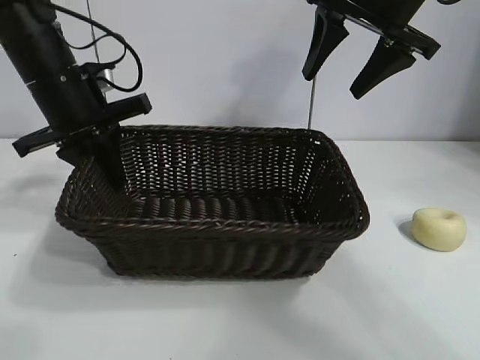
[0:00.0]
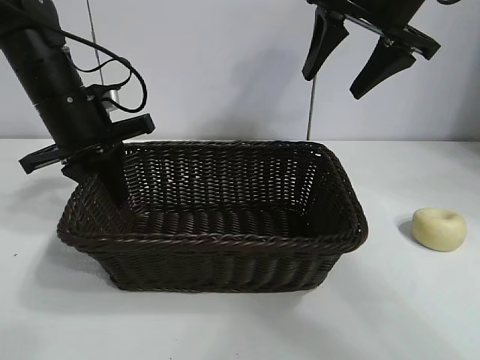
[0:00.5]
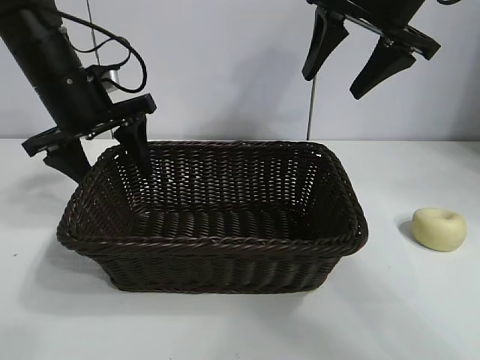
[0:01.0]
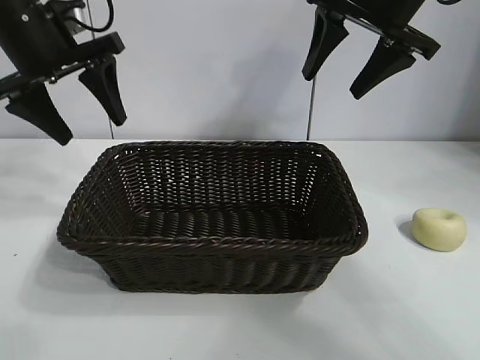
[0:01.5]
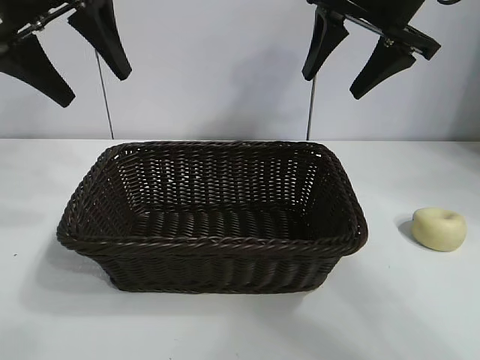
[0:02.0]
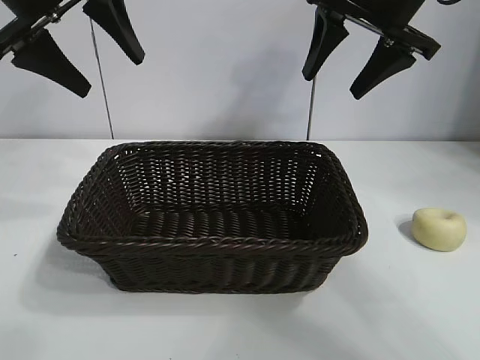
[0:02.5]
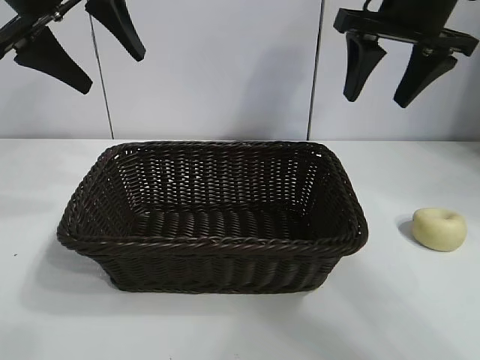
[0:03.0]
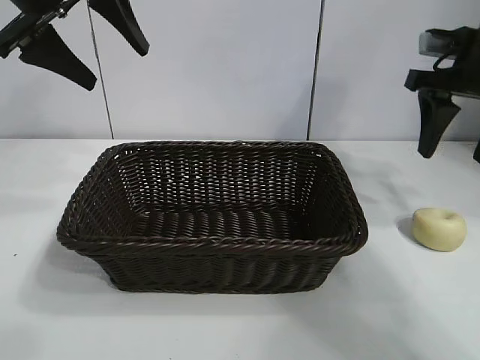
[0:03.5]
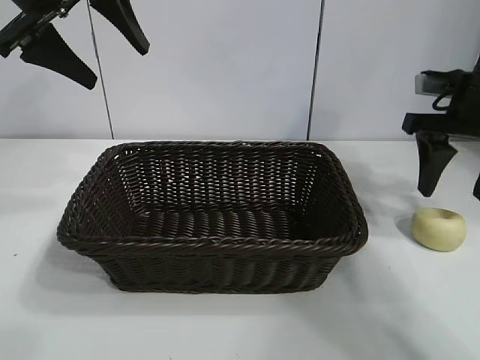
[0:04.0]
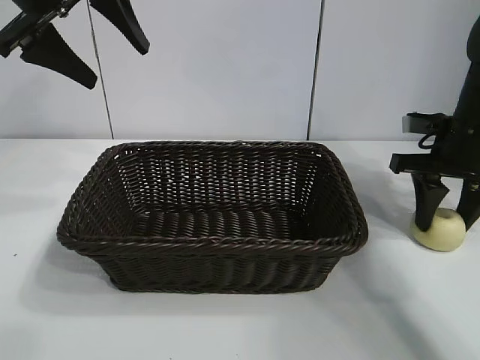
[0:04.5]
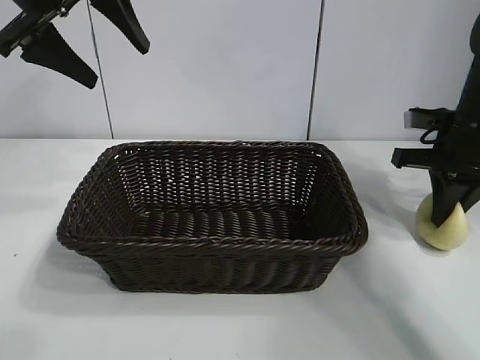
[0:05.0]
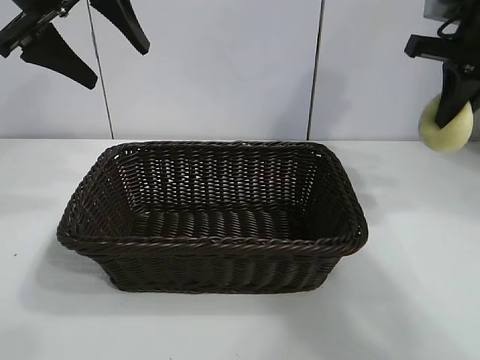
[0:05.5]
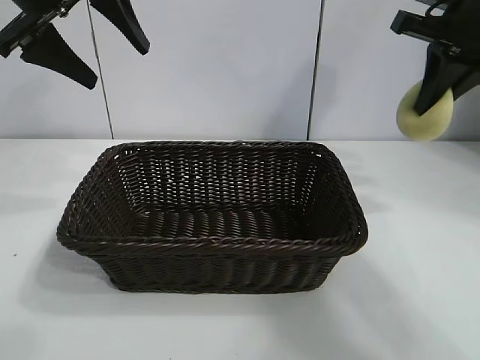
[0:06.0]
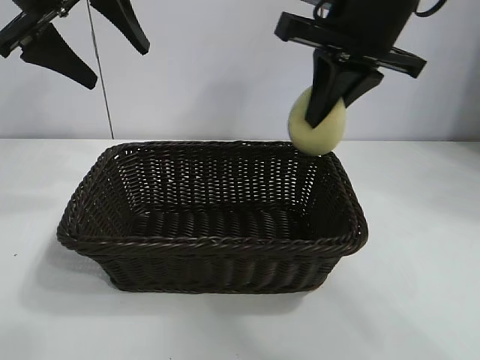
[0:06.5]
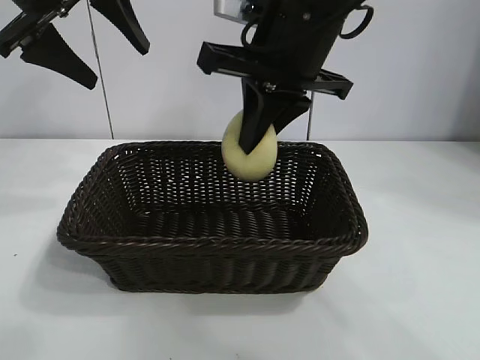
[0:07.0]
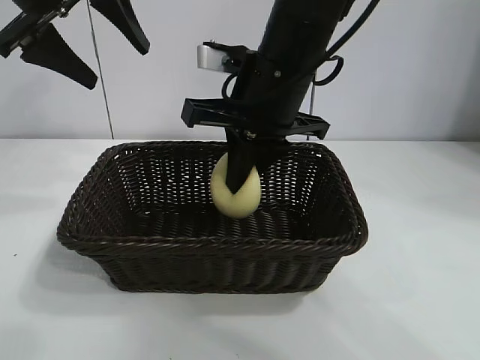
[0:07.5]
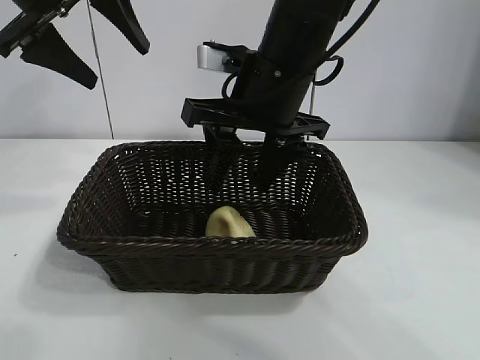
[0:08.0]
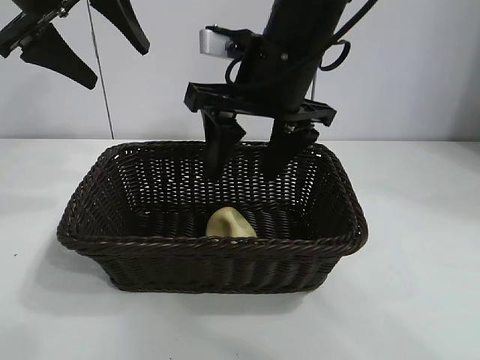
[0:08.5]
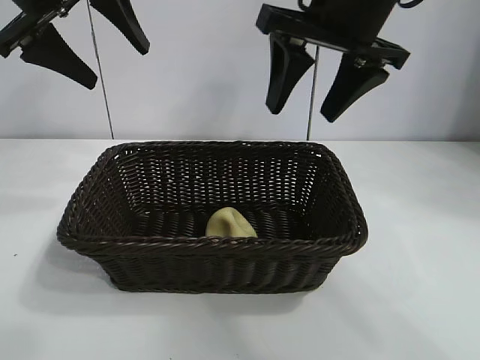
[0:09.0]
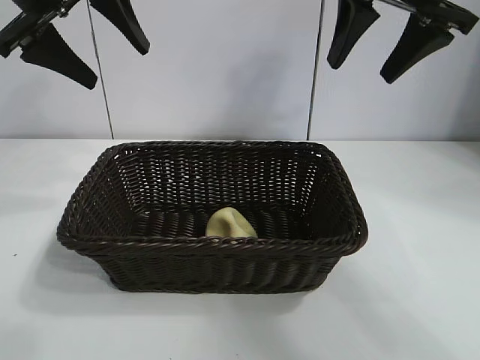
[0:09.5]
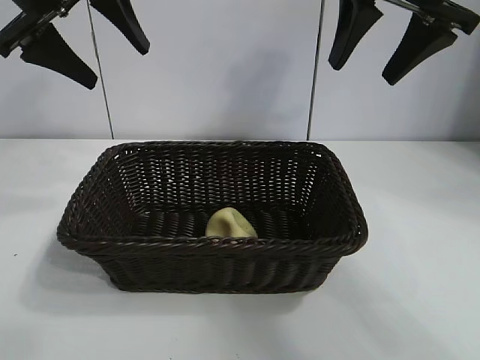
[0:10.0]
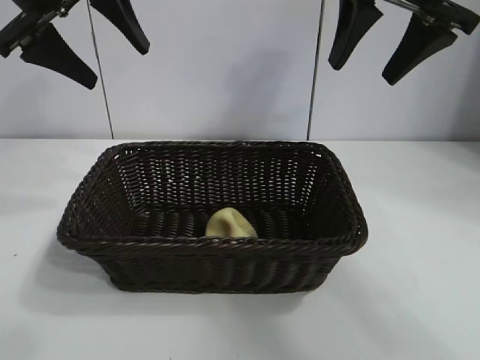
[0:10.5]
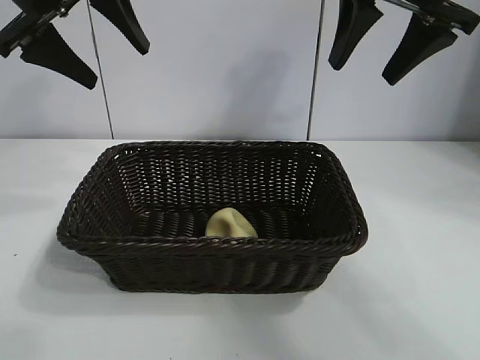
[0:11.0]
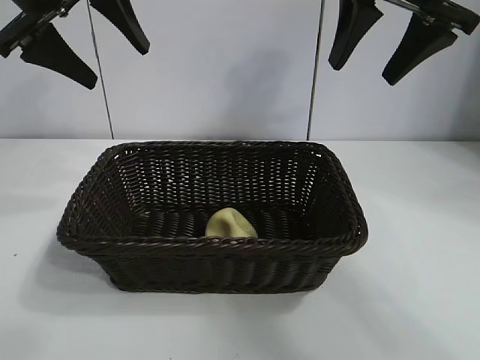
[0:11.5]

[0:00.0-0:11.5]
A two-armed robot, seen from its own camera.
Task of the whole recording: pick up the egg yolk pastry and put it into the basket.
Step, 0:01.0 to 0:04.5: Grasp egg yolk pastry with right gripper.
Step, 0:05.0 to 0:08.0: Place the egg yolk pastry in the basket with right gripper.

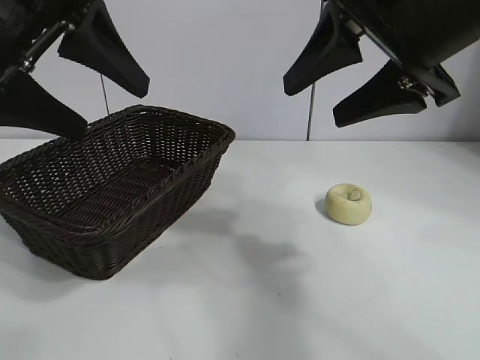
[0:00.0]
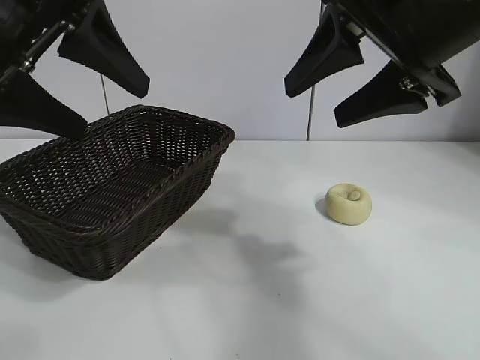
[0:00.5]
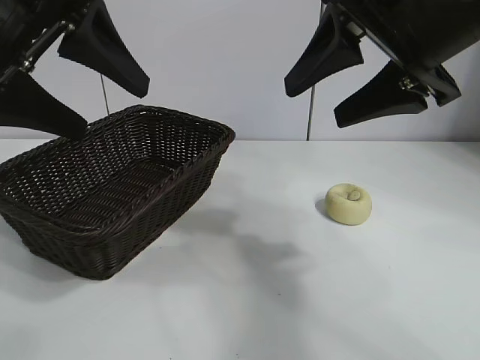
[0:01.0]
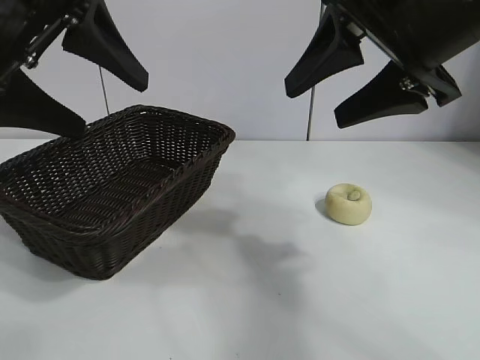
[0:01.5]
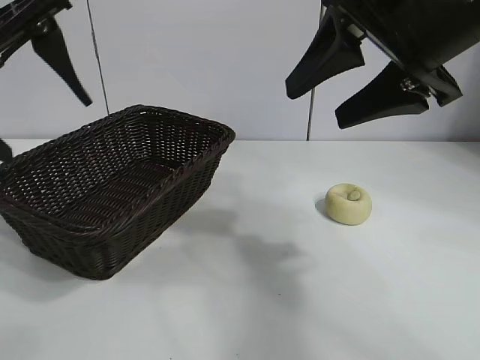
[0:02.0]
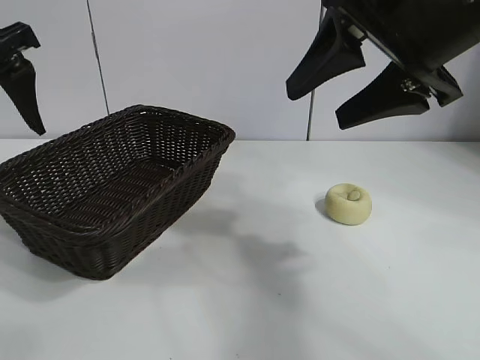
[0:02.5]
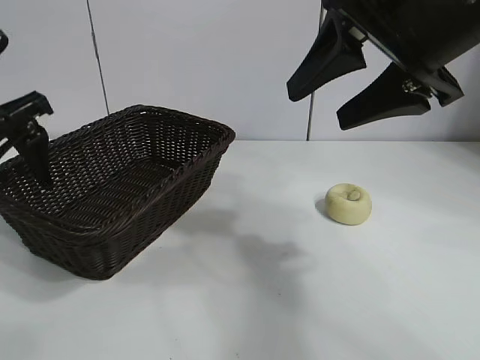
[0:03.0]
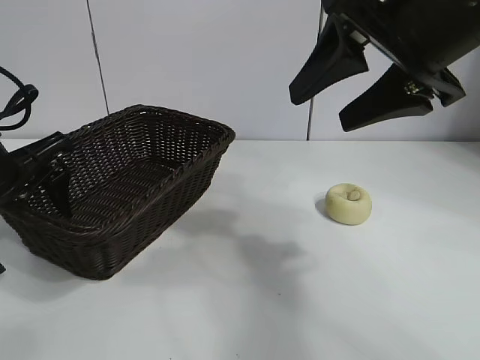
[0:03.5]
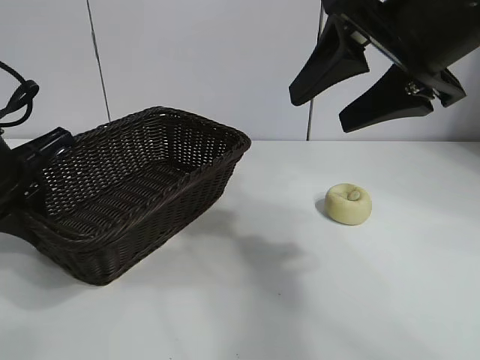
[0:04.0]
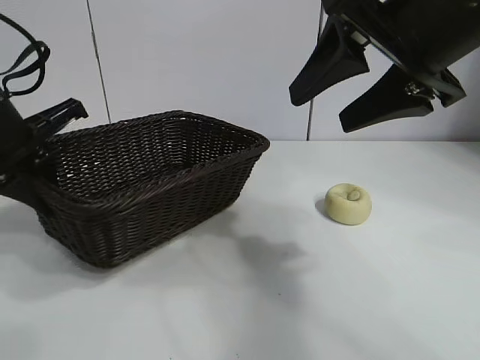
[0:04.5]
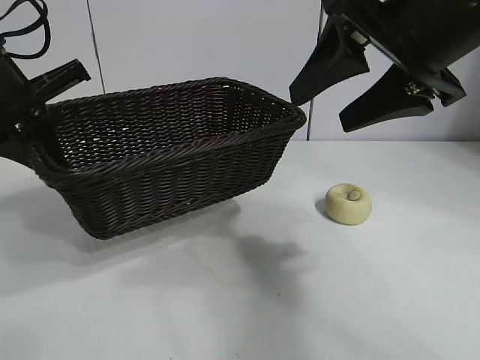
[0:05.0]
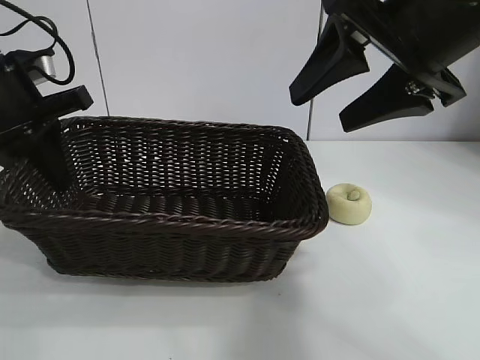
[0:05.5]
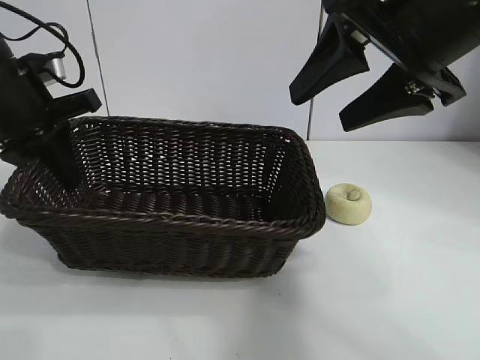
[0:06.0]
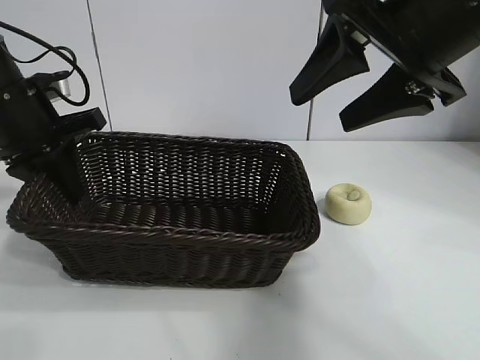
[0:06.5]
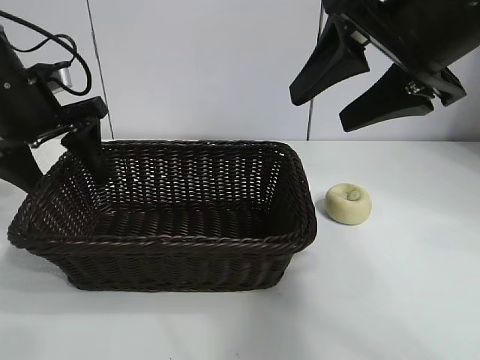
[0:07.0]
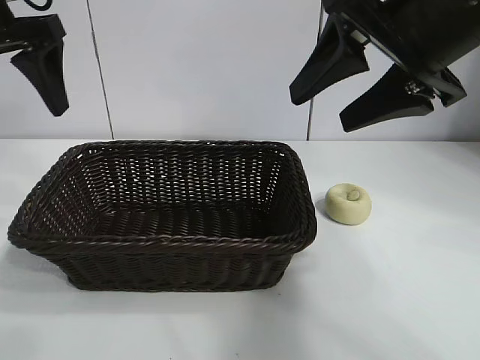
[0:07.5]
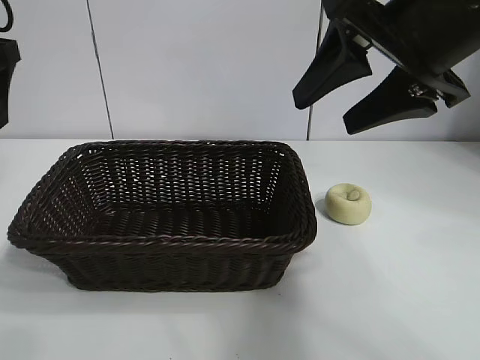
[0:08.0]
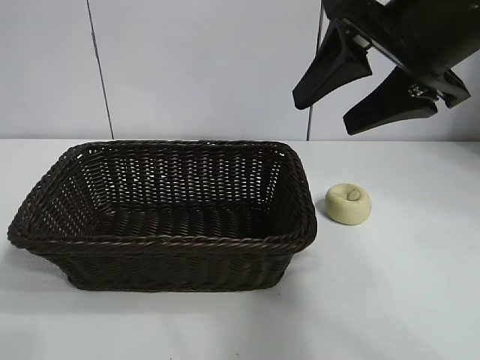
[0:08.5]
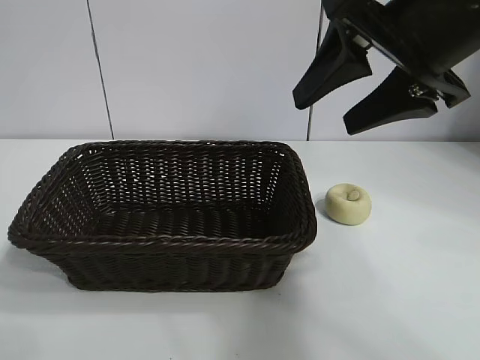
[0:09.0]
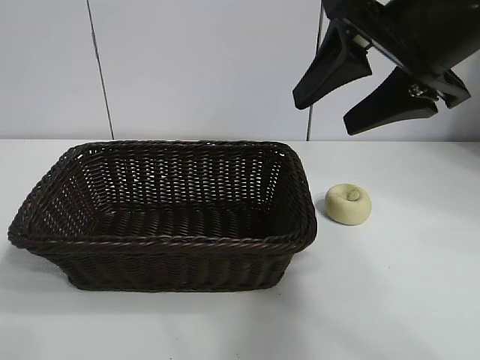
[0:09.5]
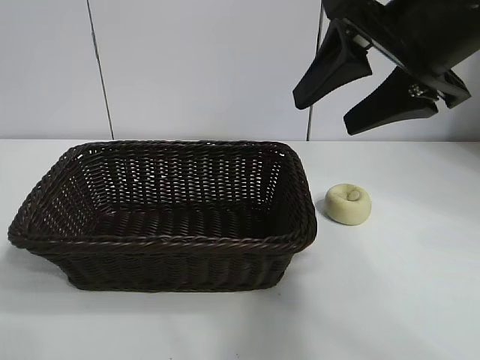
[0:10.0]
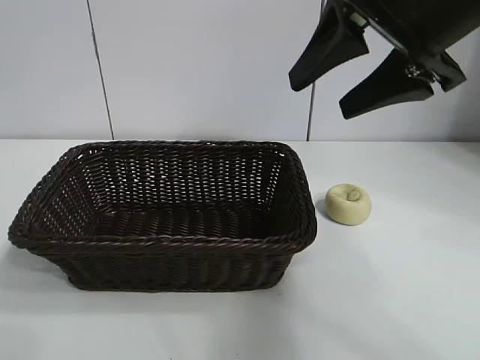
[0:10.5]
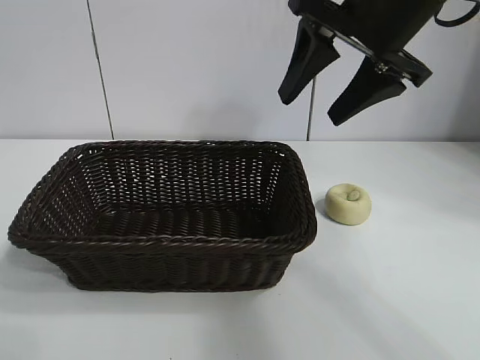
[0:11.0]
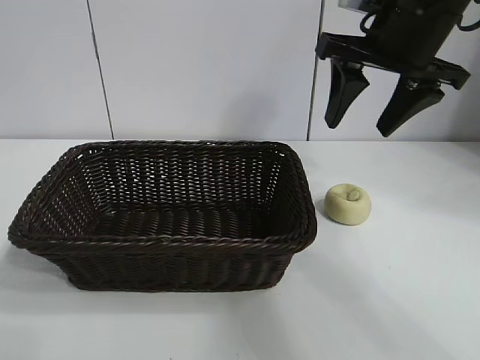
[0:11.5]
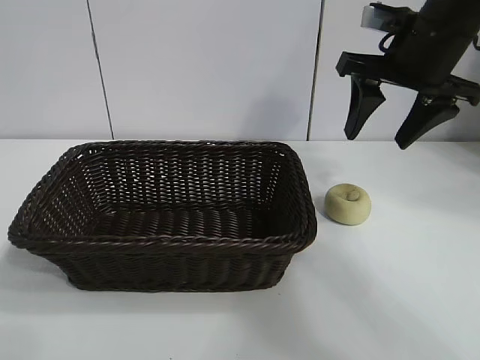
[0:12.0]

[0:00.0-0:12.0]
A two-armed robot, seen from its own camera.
Task of the whole recording: pick up the egg yolk pastry and put it into the basket.
Step, 0:01.5 to 0:03.5: Grasp the basket with left gripper.
Step, 0:04.0 to 0:07.0: Place the basket in the center of view with left gripper.

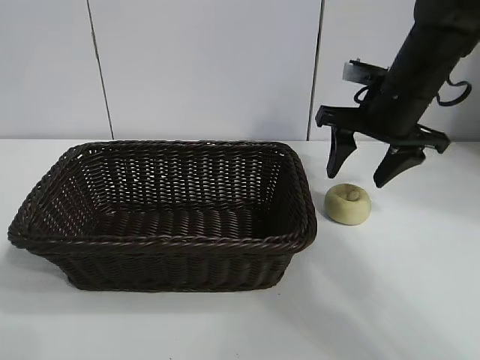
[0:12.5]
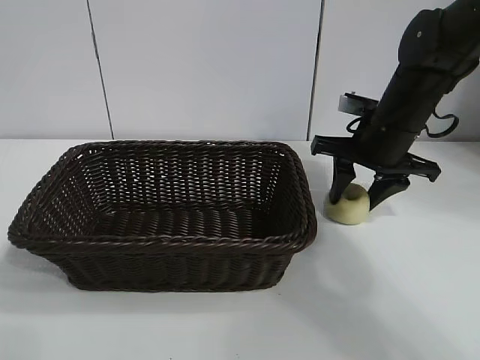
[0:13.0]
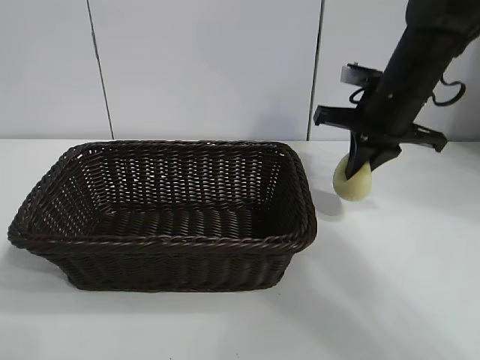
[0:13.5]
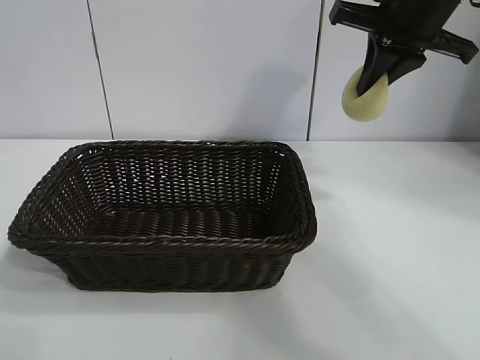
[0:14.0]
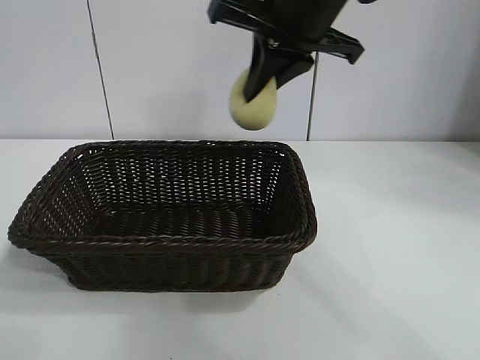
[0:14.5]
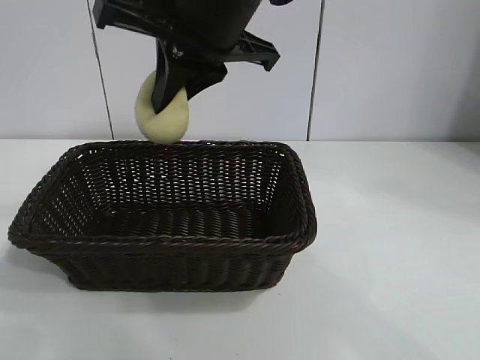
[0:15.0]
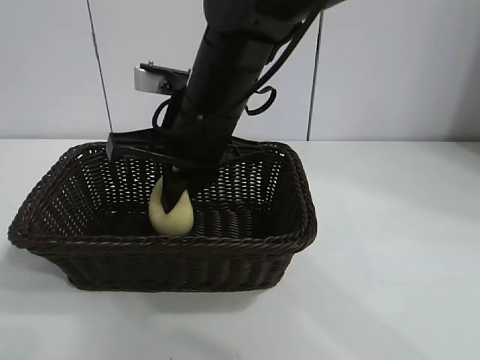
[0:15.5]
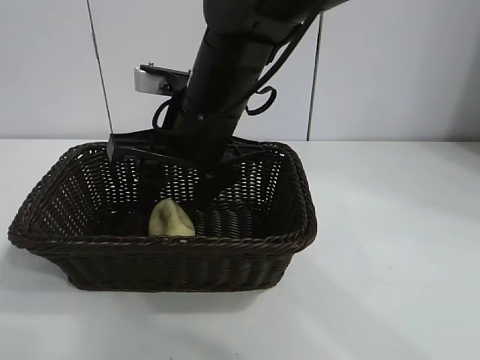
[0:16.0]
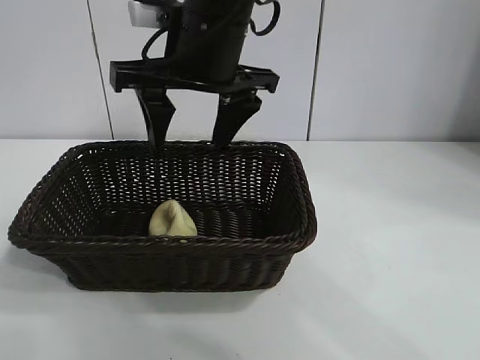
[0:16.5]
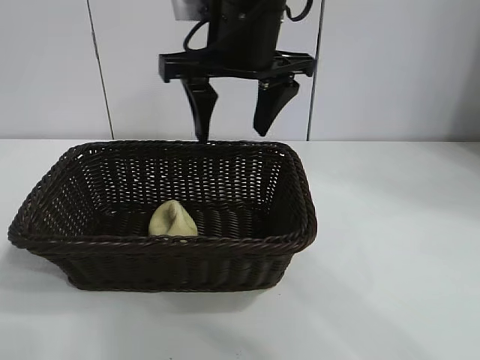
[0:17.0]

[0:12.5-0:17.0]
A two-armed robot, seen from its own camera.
Task of the whole recording: pick up the egg yolk pastry and put it into the basket.
Step, 0:13.5 to 0:16.0: Place the egg yolk pastry in the basket with right gripper.
